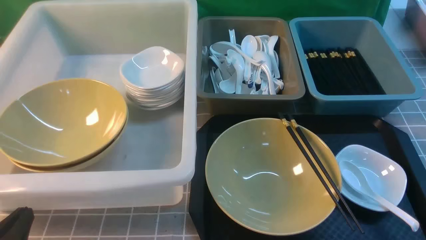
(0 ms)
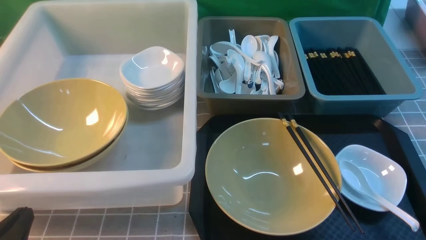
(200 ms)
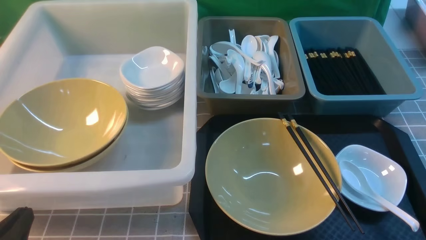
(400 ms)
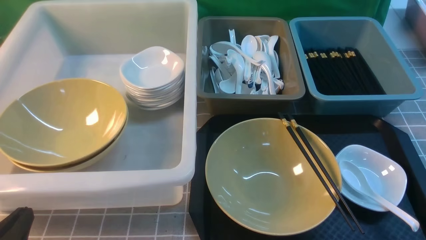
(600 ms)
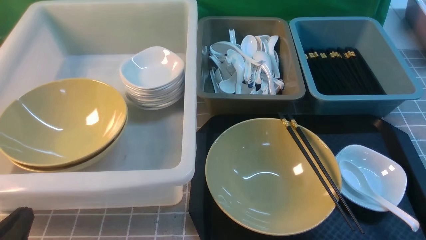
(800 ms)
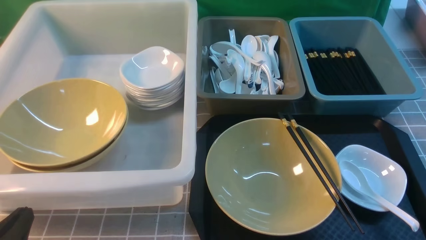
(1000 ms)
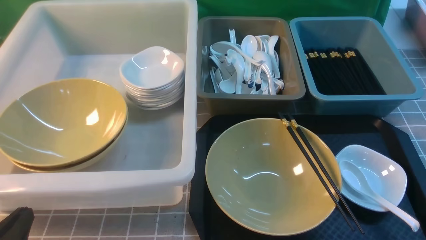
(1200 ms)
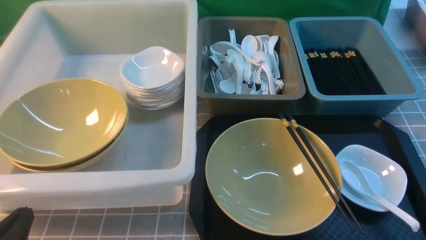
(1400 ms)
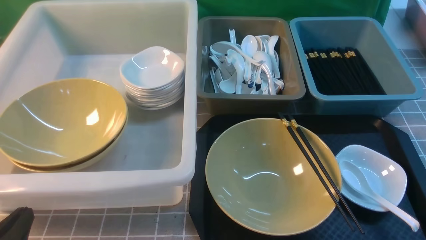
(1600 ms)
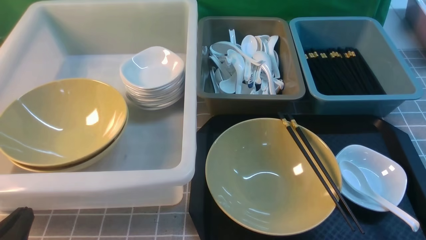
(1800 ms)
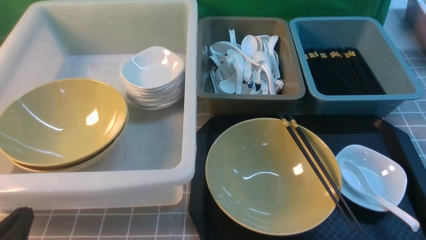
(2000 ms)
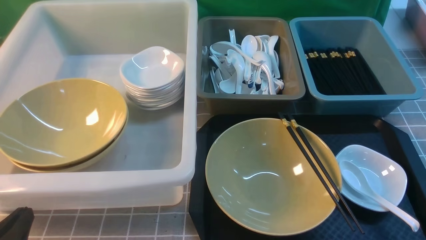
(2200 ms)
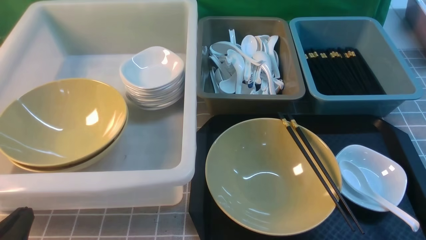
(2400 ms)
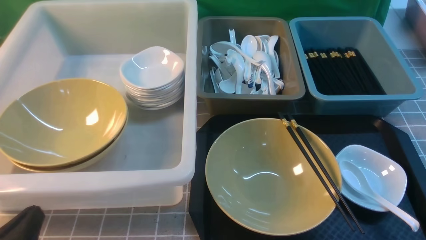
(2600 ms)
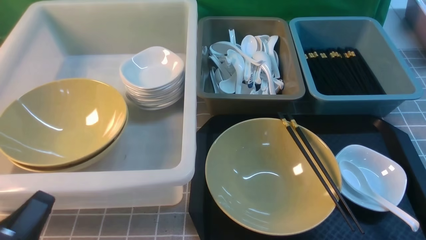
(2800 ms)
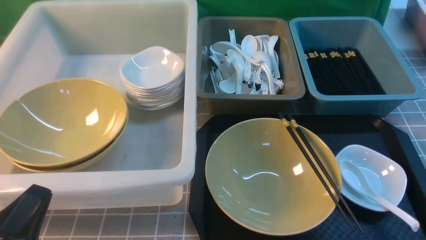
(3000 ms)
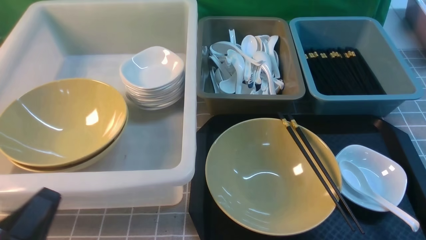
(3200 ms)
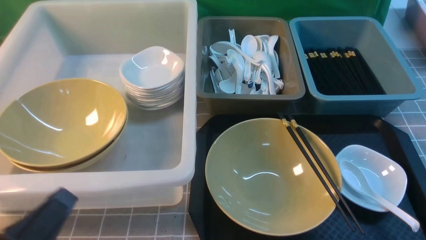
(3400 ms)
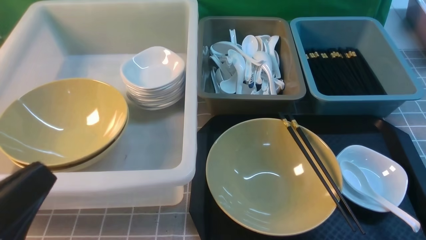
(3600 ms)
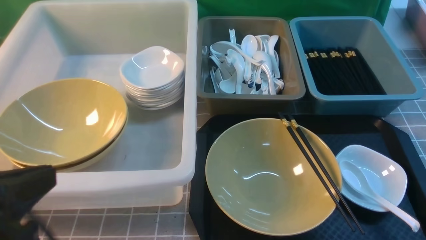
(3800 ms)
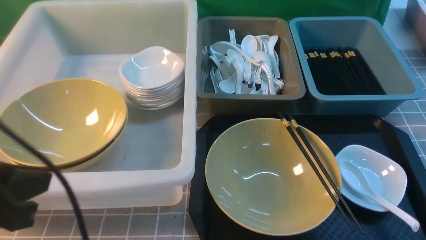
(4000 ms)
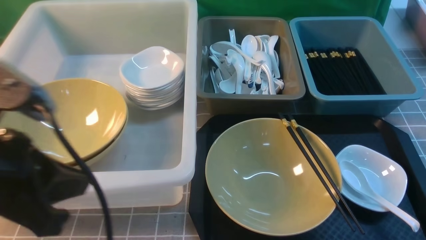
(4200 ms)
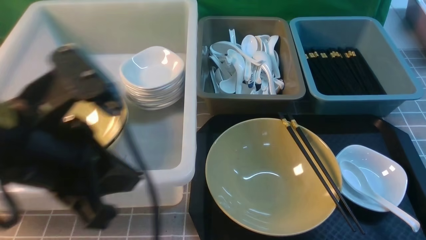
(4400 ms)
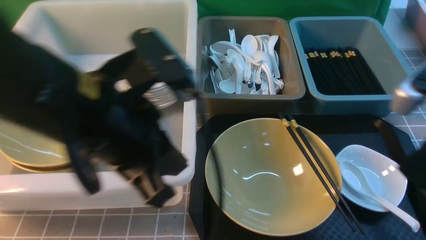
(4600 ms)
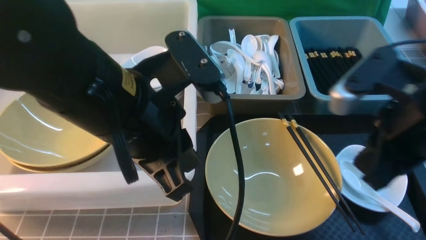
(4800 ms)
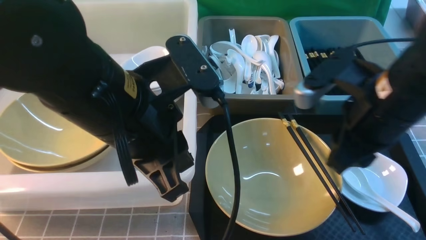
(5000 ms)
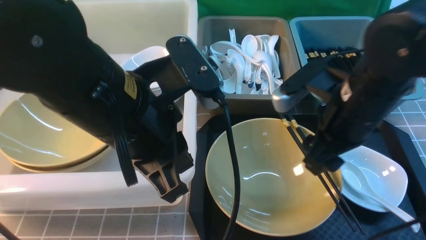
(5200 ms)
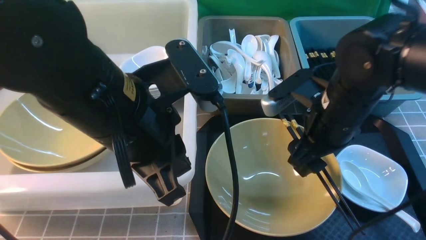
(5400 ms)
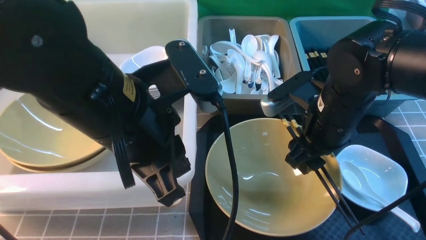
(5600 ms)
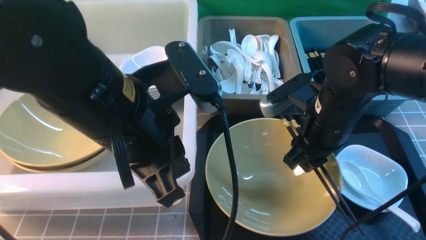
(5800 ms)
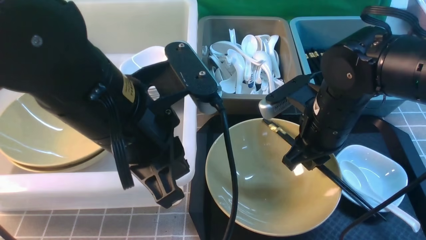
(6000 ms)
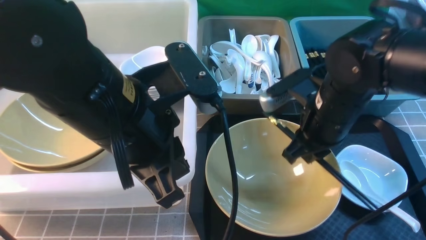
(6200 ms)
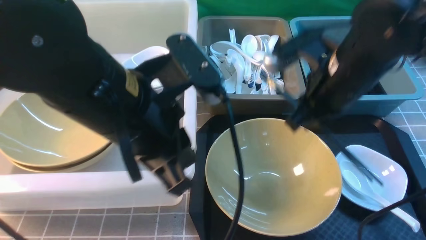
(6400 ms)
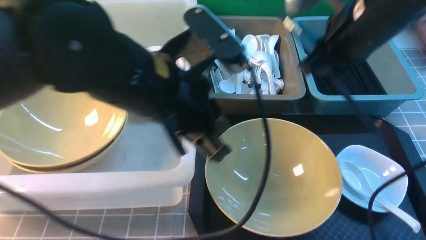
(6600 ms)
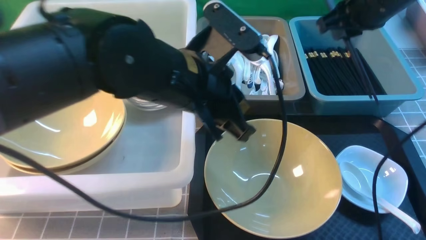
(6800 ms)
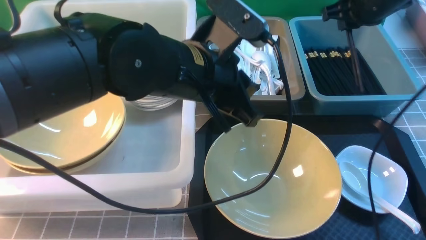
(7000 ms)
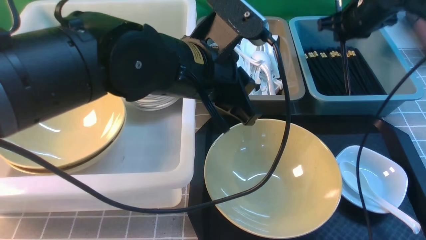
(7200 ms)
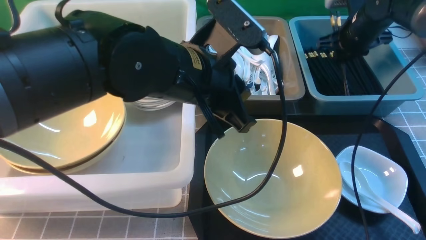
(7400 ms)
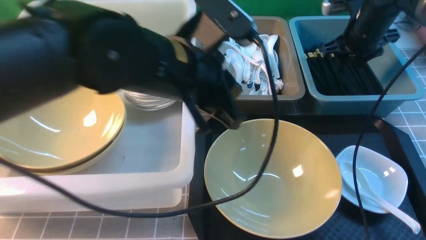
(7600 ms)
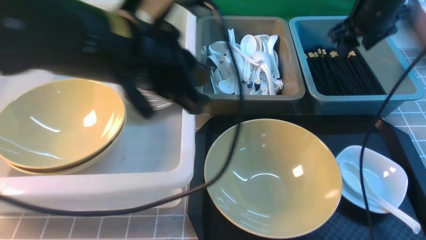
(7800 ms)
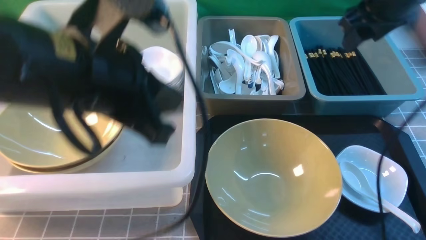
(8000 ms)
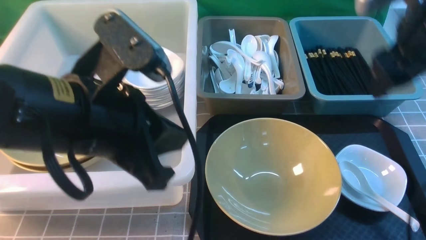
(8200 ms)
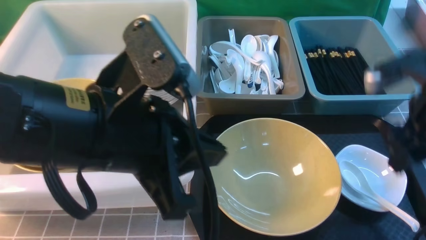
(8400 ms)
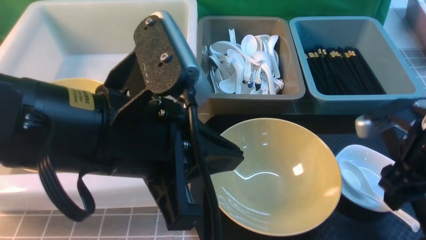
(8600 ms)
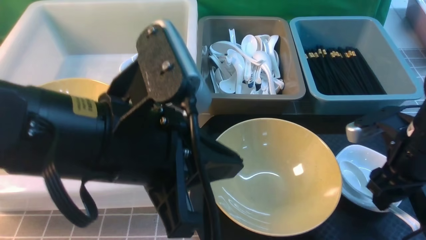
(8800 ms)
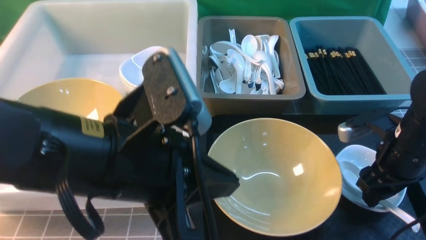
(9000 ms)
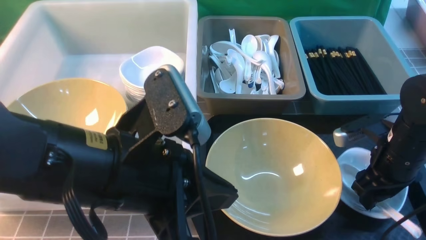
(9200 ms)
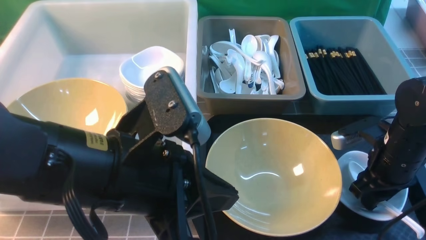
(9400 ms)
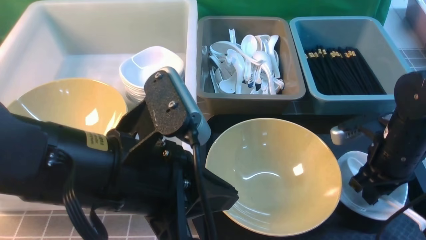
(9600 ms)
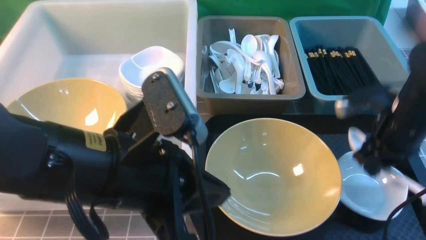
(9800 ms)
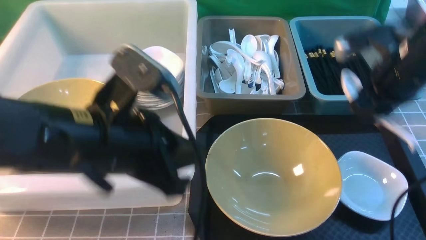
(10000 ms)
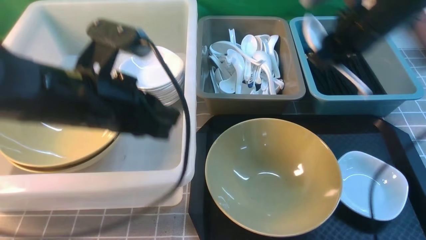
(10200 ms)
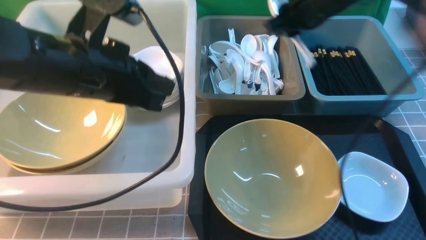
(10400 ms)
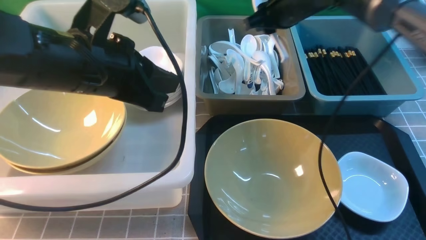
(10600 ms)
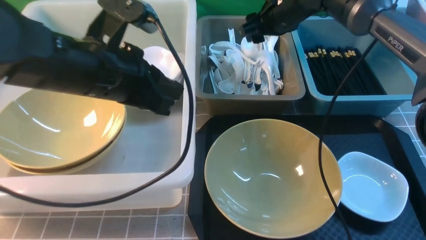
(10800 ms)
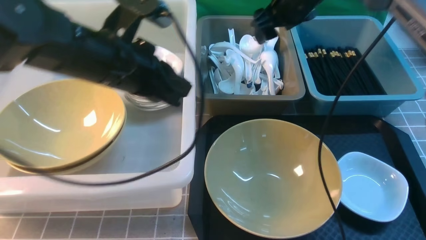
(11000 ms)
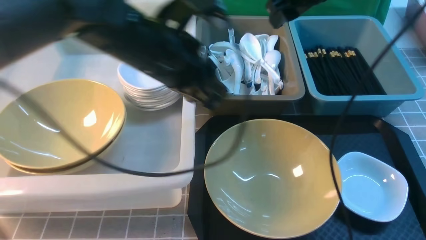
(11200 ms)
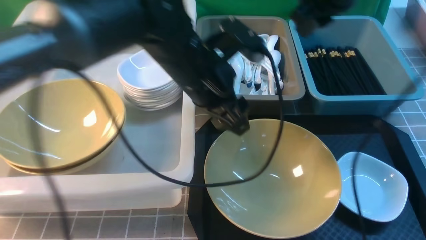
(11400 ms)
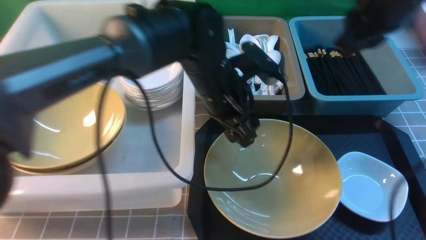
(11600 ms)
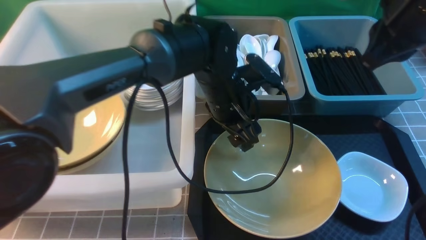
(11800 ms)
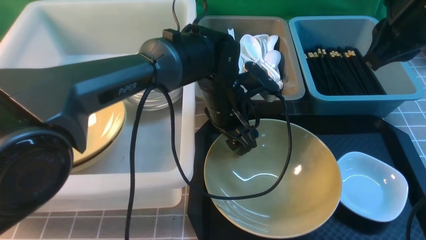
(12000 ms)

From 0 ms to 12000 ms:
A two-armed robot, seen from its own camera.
Task of the whole recording: on grey table put chopsticks spoon bowls plates into blue grey white boxes.
Step, from 0 ms to 6200 ms: use the right arm to grab the chopsticks.
Step, from 6400 ms to 7600 ms: use the right arm to put the chopsticks into the small storage box on the right.
Step, from 7800 ms to 9800 ms: use the right arm to grab the soup spoon in the middle.
Step, from 10000 ms to 10800 ms: use the right arm to put the soup spoon into the small storage box in the middle.
From 0 ms to 1600 ms: Both grippers stay put.
From 3000 ms to 4400 ms: The left gripper shifts roughly 20 cm upward, forward and to the right. Meanwhile the right gripper goes about 20 cm upward and forward, and closes.
From 4400 ms to 6000 ms: The left gripper heads to the right, covering some 5 cm, while the right gripper travels forward, to the left and downward by approximately 20 cm, and opens and closes again.
From 6000 ms to 7600 ms: The left gripper heads forward, covering approximately 5 cm. The right gripper goes roughly 20 cm forward and to the right, and opens its fingers.
From 7600 ms to 9000 ms: The right gripper moves backward and downward, some 20 cm, while the left gripper goes roughly 10 cm backward.
From 9000 ms to 10400 ms: The right gripper moves forward, upward and to the left, roughly 25 cm, and closes its fingers. Meanwhile the left gripper travels forward and to the left by roughly 10 cm.
From 10400 ms to 12000 ms: The right gripper heads backward, upward and to the right, covering about 15 cm, and closes its fingers, while the left gripper goes roughly 20 cm to the right, downward and forward, and opens.

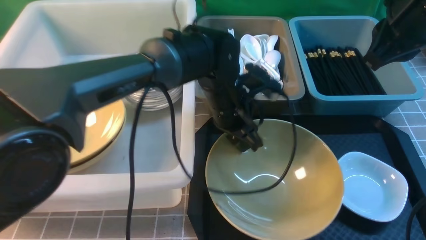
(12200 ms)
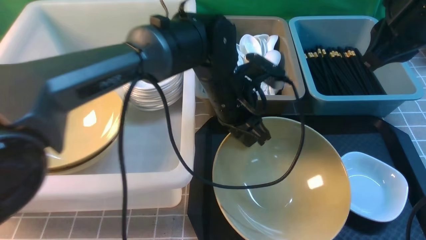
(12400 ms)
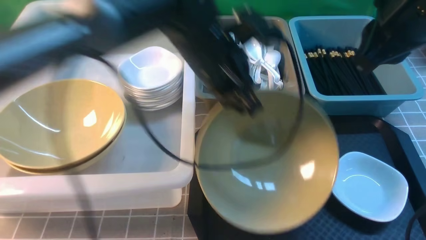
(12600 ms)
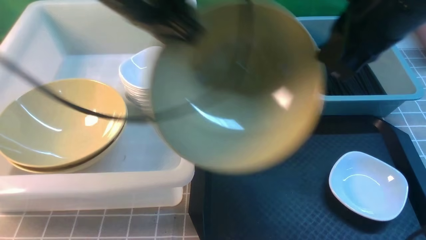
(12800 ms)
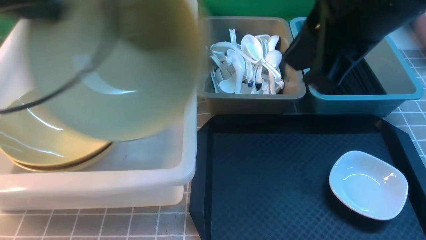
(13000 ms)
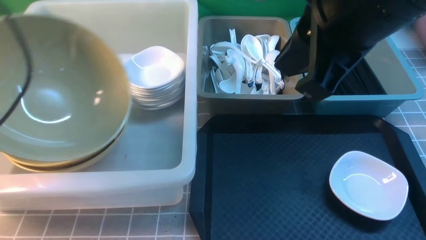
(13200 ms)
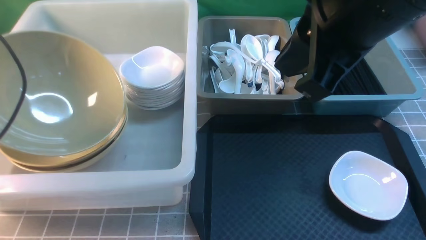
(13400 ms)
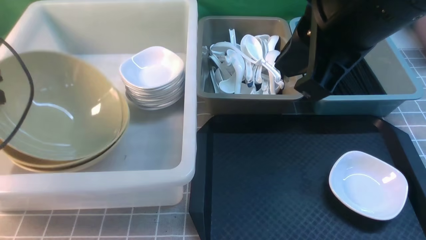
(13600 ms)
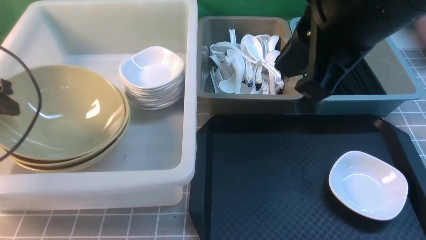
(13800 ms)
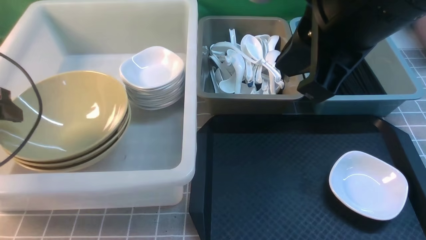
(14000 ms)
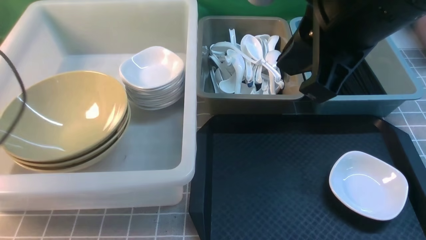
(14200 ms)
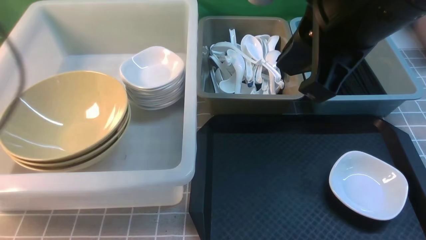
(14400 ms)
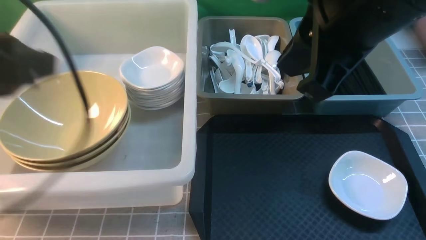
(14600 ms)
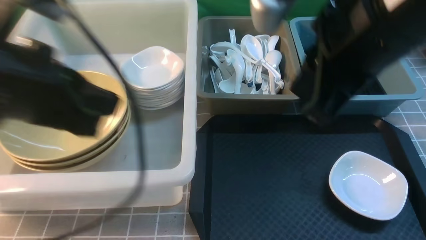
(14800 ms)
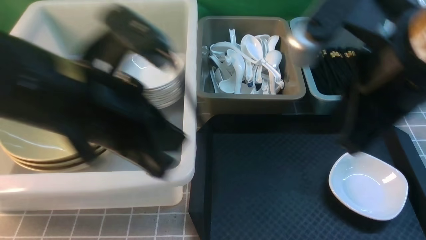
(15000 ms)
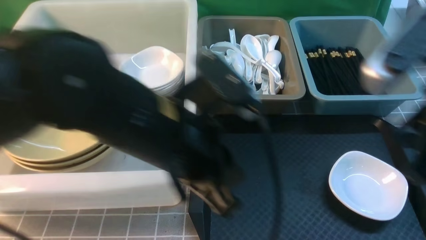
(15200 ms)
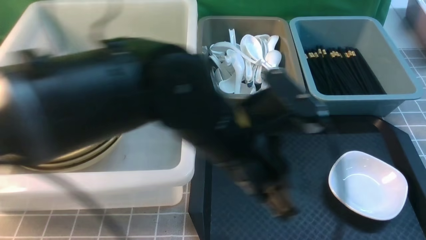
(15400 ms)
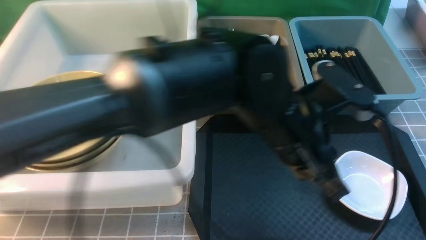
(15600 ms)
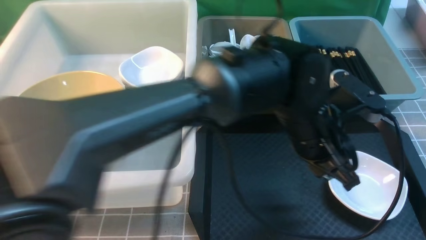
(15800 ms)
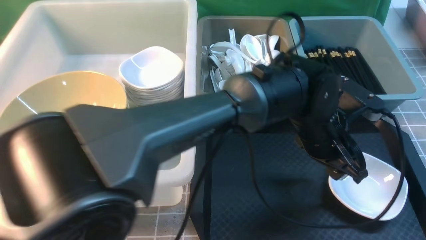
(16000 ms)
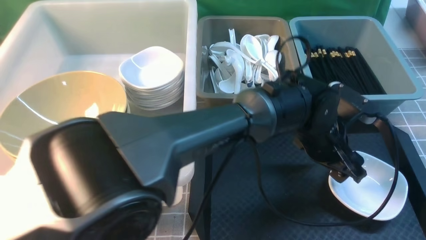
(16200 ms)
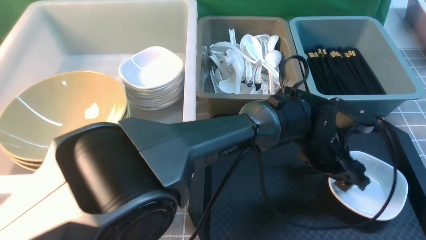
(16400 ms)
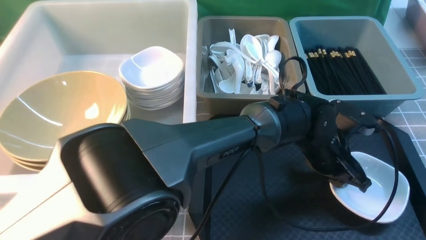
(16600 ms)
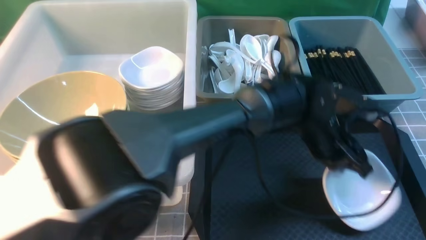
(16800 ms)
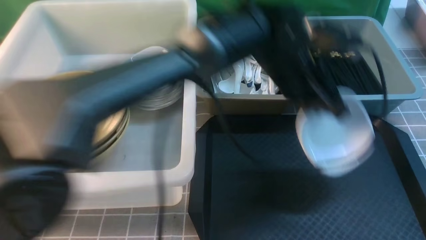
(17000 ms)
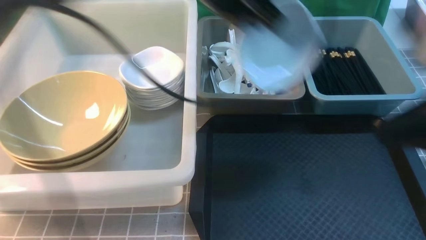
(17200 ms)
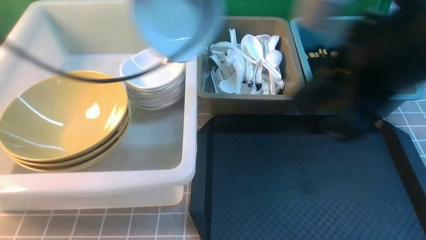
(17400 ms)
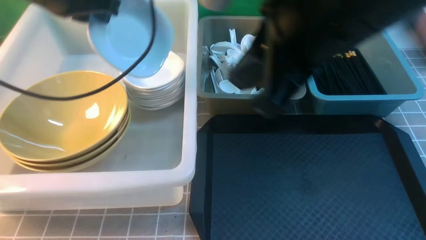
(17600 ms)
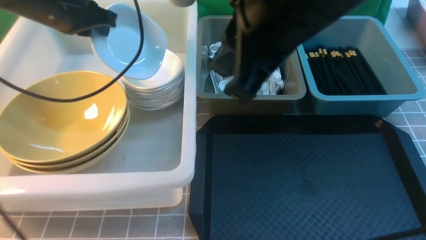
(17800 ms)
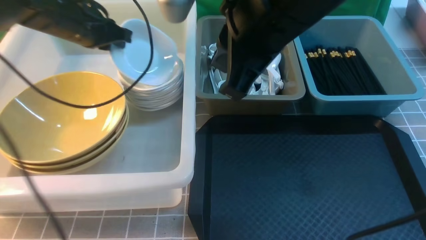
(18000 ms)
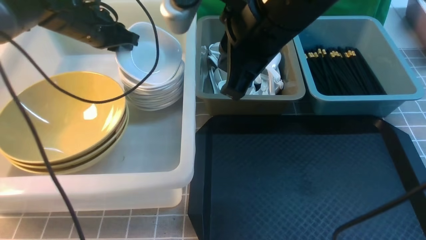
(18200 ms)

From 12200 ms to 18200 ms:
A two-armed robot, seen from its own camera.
Task of the whole recording: on grey table put chopsticks spoon bowls plates into blue grey white boxes.
Step, from 12400 ms to 13800 ms: use the left arm to put the noodle bowl into the large storage box on the left.
Step, from 14000 ms to 16600 ms: use the left arm to grab the plate.
From 12200 ms to 13800 ms: The right gripper is displaced to the left, backward and upward by approximately 15 cm, while the left gripper travels to the left by some 40 cm, and closes, then reopens.
From 13800 ms to 15200 ms: The left gripper is displaced to the right by some 35 cm, and closes, while the right gripper heads to the right, downward and backward, covering approximately 15 cm.
From 15200 ms to 16600 ms: The right gripper shifts roughly 10 cm backward and to the right; the left gripper moves to the right, downward and forward, approximately 25 cm, and opens.
From 16600 ms to 18200 ms: The two grippers go approximately 35 cm to the left and forward.
